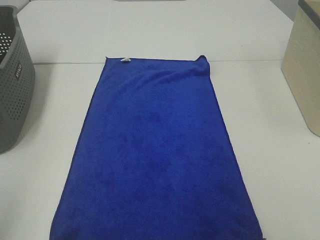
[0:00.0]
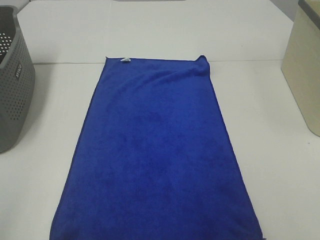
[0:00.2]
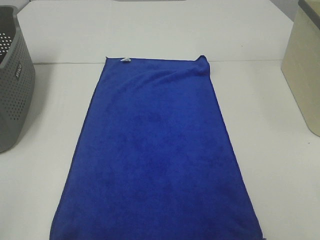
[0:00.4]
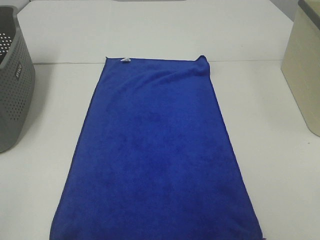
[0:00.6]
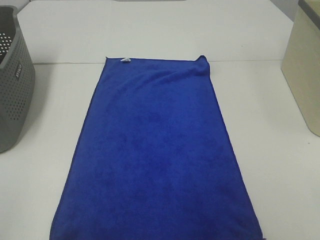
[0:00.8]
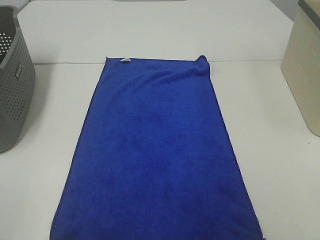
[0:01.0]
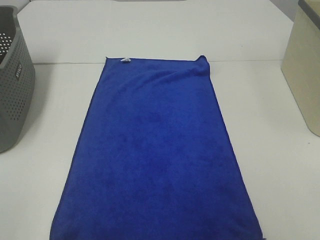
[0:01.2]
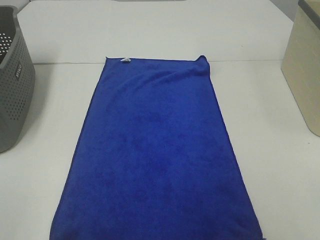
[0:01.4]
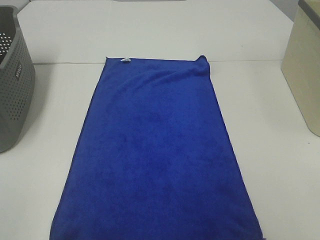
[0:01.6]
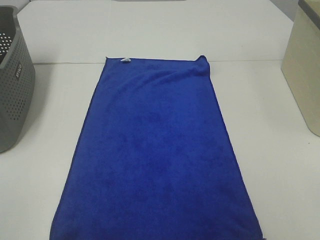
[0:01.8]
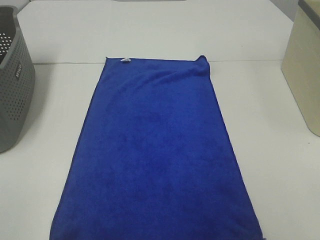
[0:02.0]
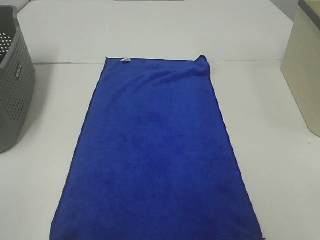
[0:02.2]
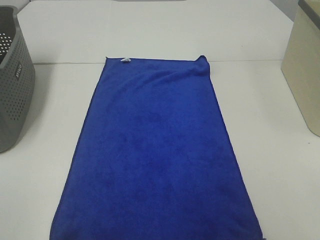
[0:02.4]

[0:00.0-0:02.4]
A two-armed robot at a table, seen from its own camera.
Task of the whole recording: Remove the towel and place it.
0:01.2 to 0:02.4: Both grippers stay about where they are.

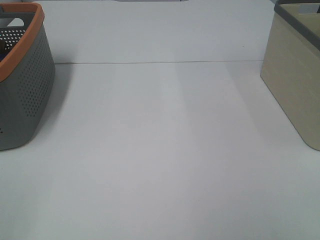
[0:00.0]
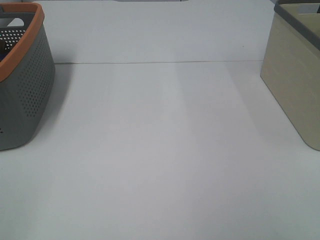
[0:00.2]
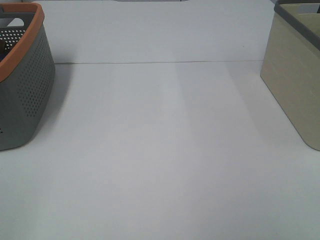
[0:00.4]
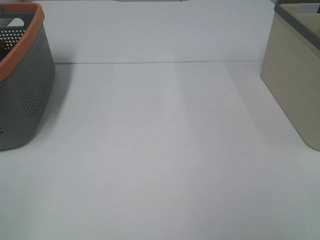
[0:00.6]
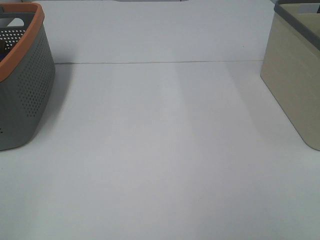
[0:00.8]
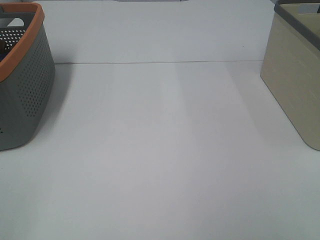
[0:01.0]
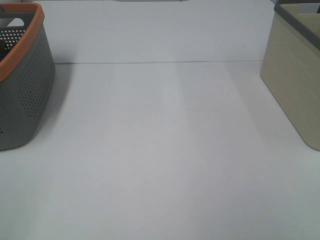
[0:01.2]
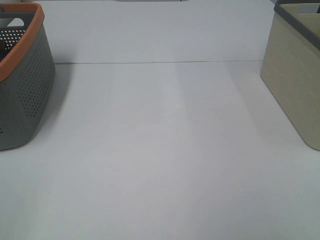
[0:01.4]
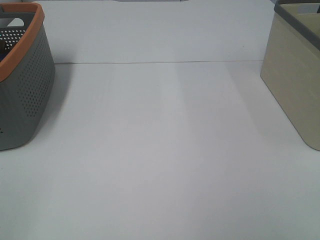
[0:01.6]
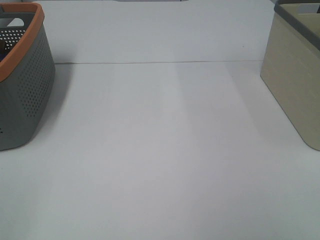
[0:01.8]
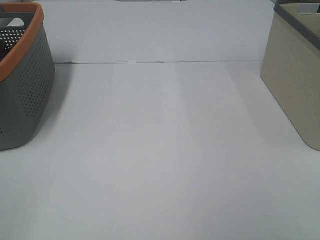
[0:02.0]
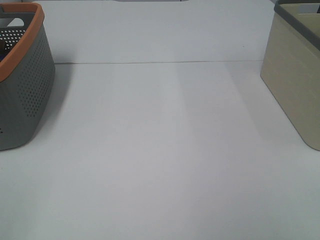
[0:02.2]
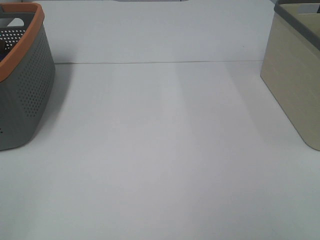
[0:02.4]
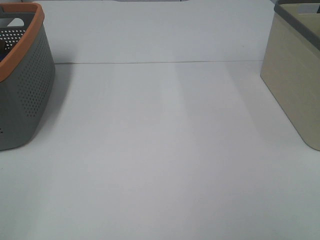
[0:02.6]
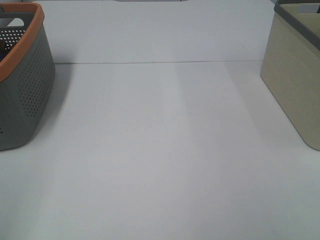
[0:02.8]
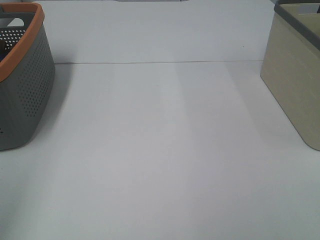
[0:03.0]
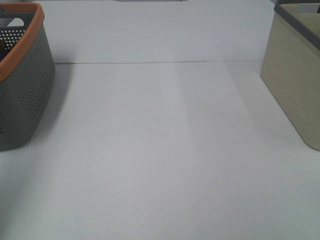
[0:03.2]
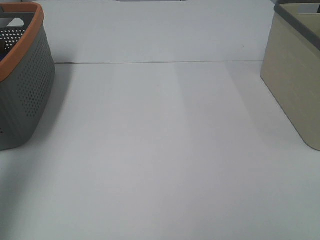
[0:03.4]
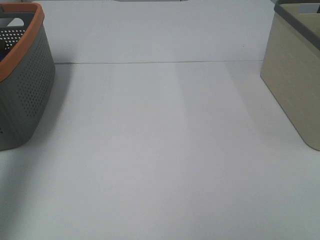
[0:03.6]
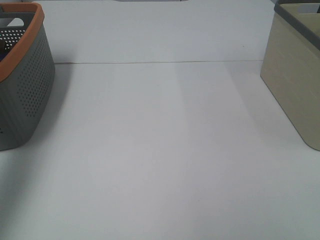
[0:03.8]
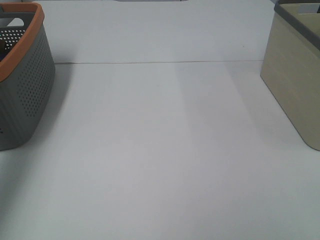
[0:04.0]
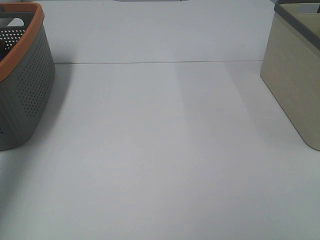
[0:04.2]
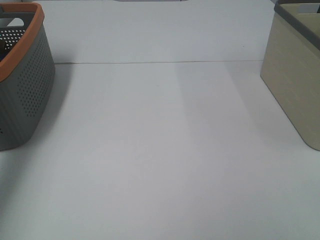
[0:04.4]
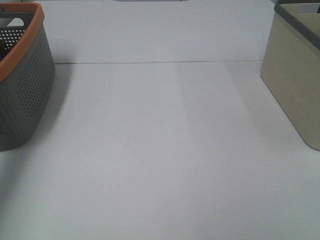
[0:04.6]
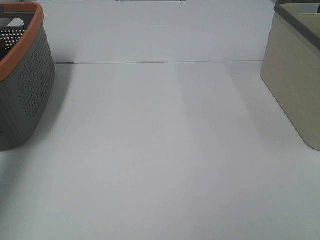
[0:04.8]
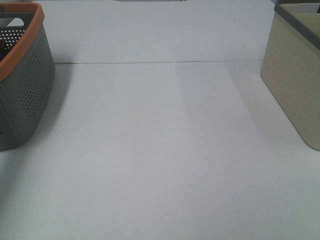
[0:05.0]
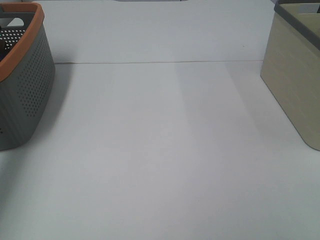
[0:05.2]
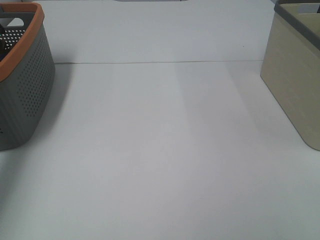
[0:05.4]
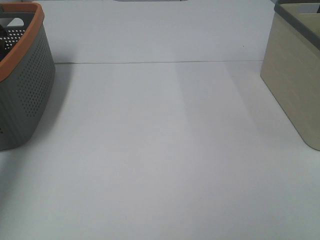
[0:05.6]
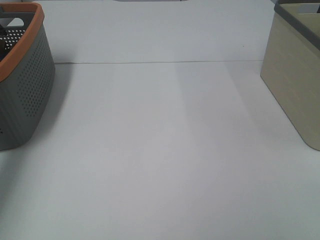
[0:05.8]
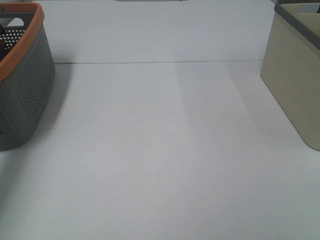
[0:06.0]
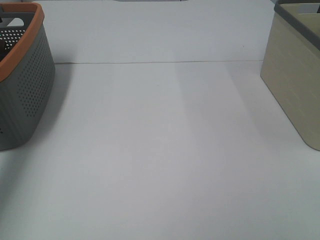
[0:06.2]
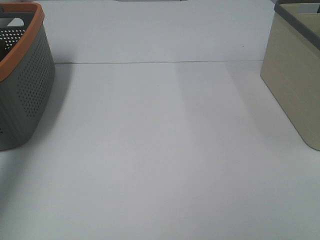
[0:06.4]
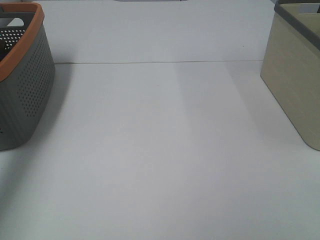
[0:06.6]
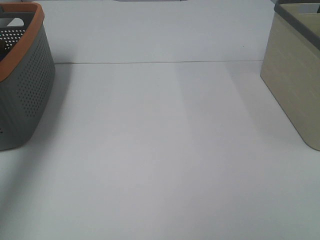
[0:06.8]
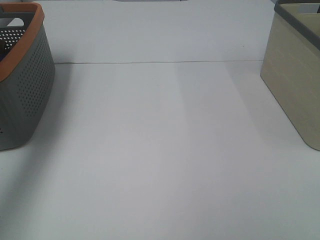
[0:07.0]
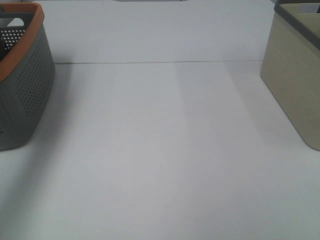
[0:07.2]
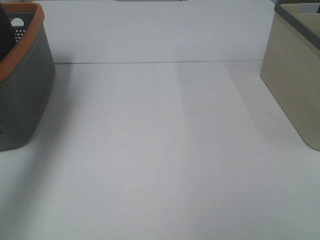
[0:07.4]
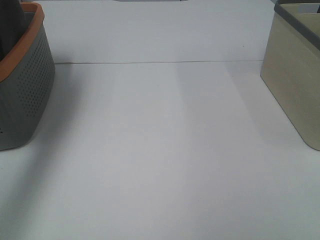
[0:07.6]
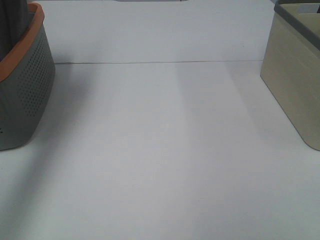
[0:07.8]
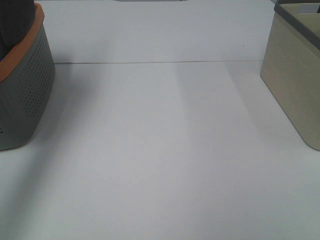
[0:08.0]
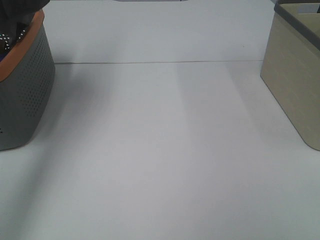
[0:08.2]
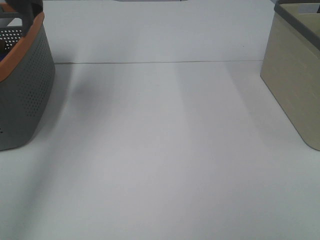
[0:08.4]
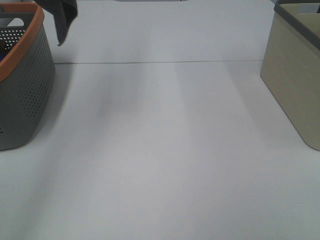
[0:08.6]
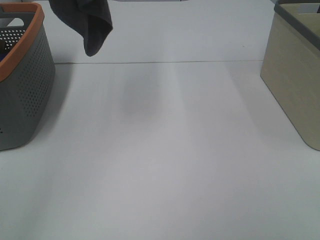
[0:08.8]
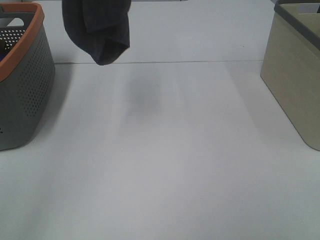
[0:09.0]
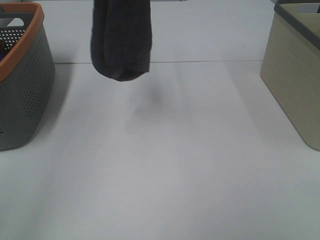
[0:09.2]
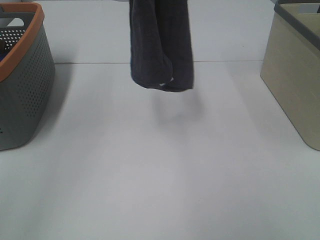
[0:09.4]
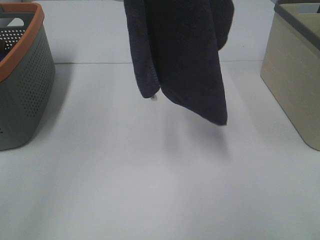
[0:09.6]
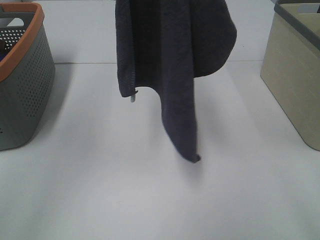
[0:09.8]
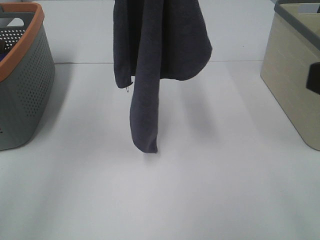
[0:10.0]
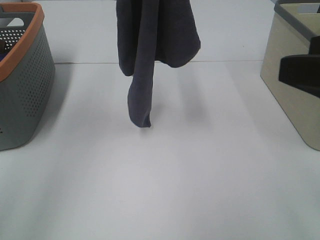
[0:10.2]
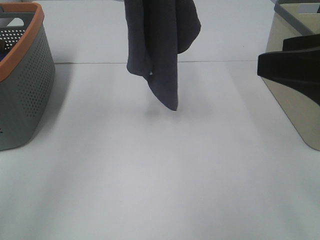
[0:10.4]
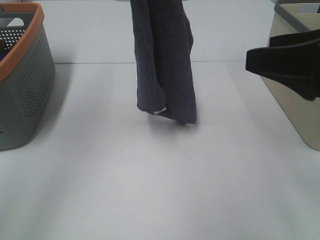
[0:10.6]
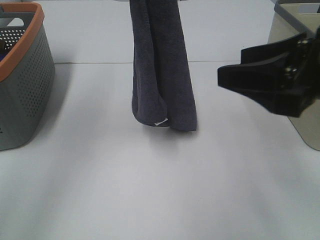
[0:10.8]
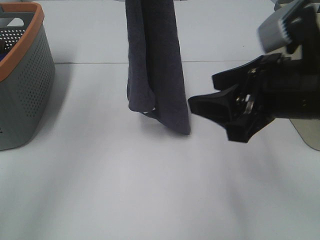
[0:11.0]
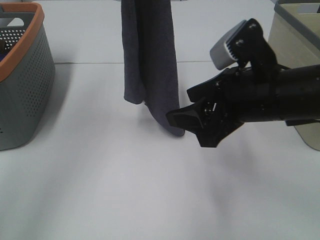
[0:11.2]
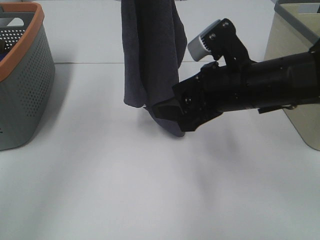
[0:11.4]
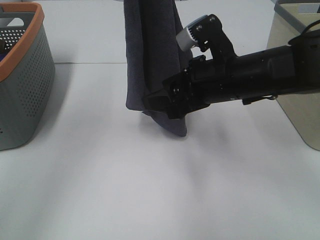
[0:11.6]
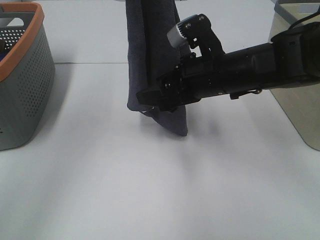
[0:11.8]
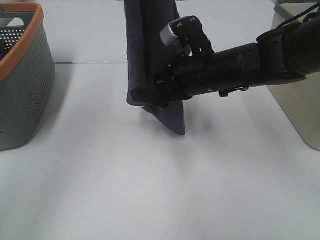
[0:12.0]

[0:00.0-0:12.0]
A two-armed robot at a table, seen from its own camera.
Task of the whole recording: Remove the towel and place it.
0:00.0 to 0:01.6: Neither gripper changes place.
0:03.0 to 0:04.4: The left gripper goes roughly 30 cm forward.
0:06.0 to 0:07.6: The left gripper moves upward and to the right, some 20 cm.
0:07.6 to 0:09.0: The left gripper is displaced to the right, upward and backward by approximately 20 cm.
0:09.0 to 0:10.4: The left gripper heads downward, covering some 5 cm. The right gripper goes about 15 cm forward.
0:10.4 to 0:12.0: The right gripper heads forward, to the left and downward, covering roughly 25 cm.

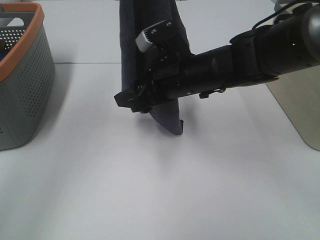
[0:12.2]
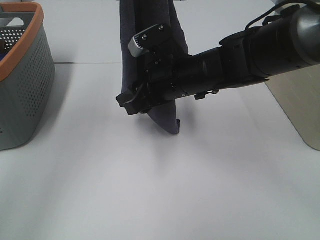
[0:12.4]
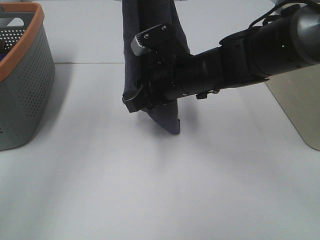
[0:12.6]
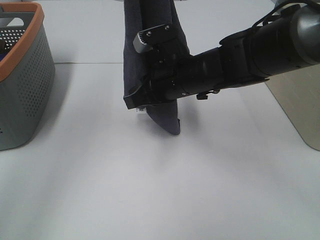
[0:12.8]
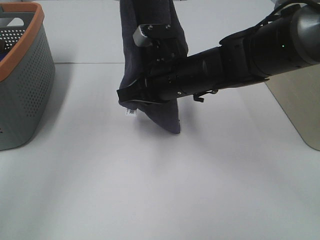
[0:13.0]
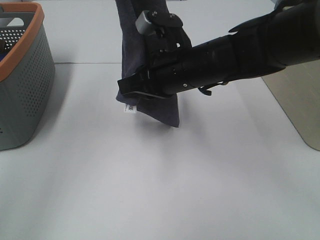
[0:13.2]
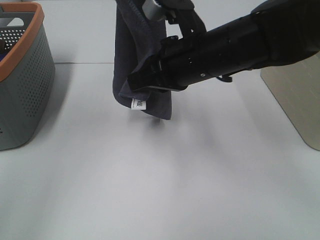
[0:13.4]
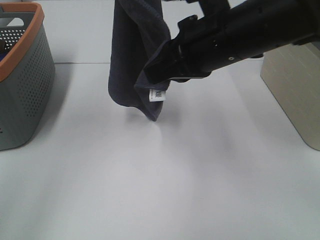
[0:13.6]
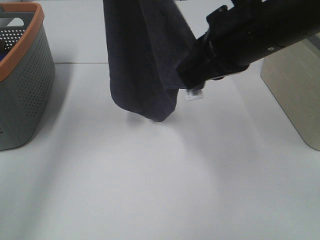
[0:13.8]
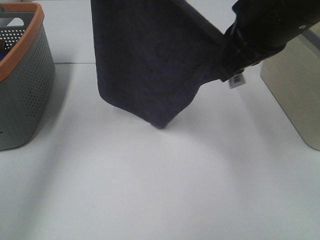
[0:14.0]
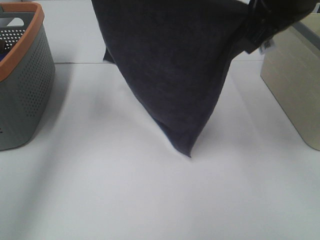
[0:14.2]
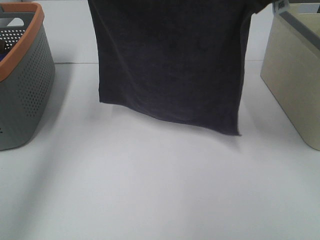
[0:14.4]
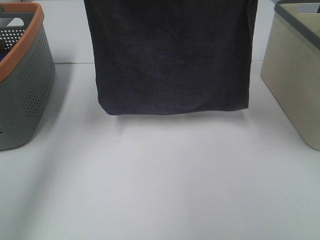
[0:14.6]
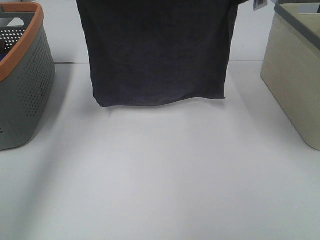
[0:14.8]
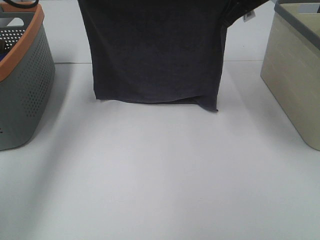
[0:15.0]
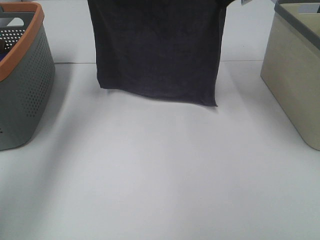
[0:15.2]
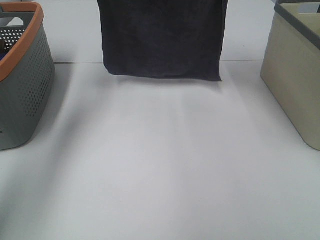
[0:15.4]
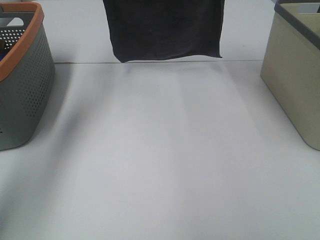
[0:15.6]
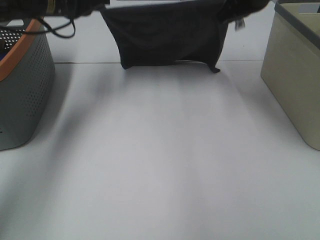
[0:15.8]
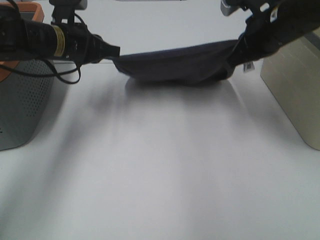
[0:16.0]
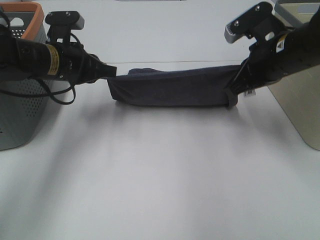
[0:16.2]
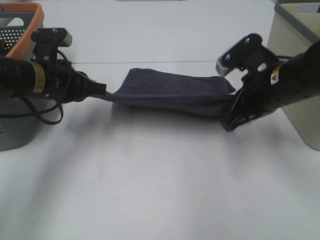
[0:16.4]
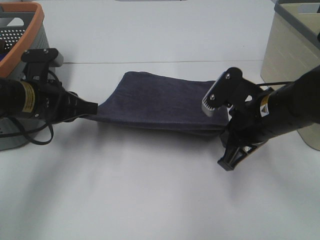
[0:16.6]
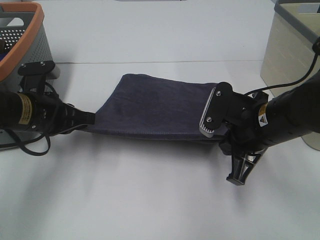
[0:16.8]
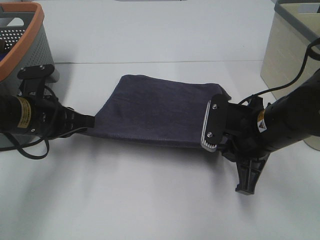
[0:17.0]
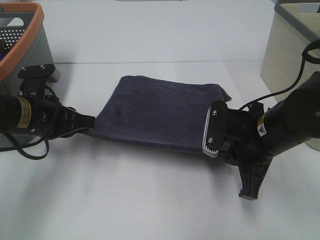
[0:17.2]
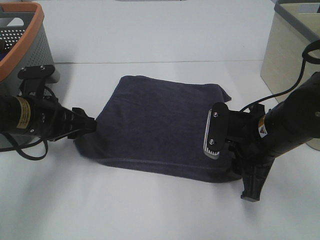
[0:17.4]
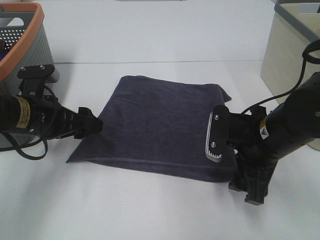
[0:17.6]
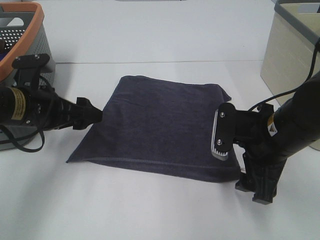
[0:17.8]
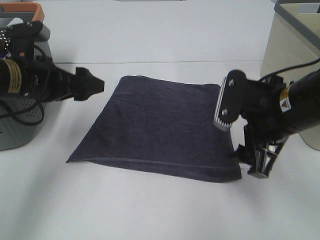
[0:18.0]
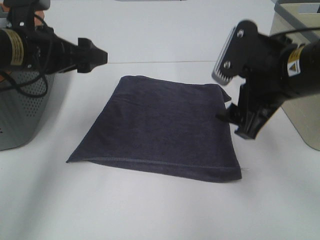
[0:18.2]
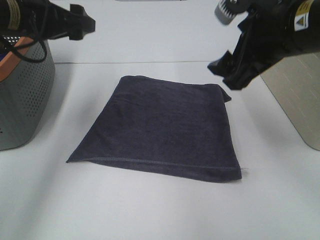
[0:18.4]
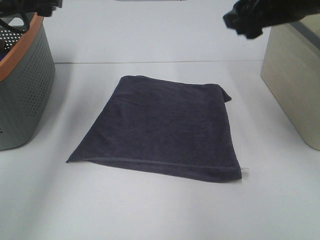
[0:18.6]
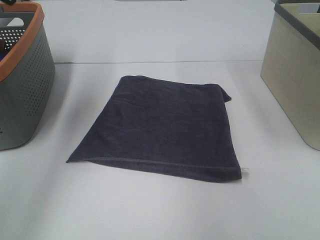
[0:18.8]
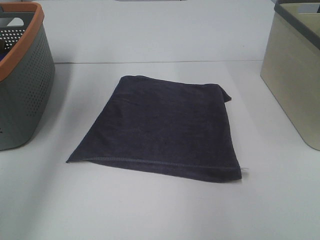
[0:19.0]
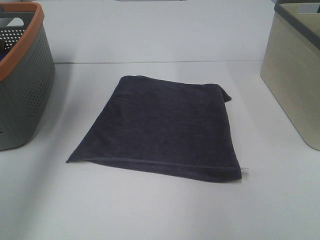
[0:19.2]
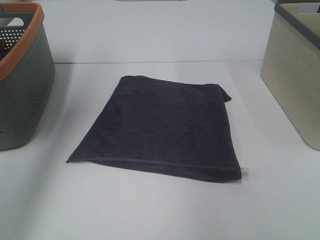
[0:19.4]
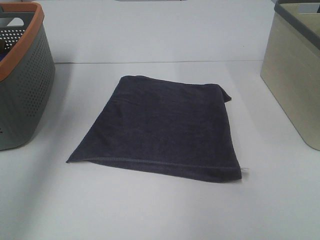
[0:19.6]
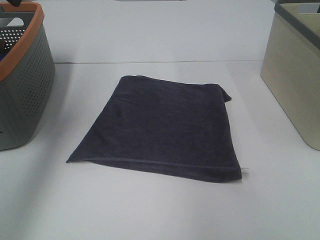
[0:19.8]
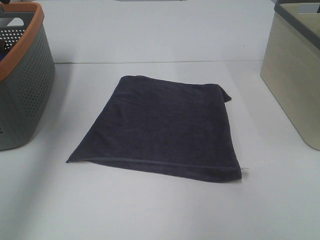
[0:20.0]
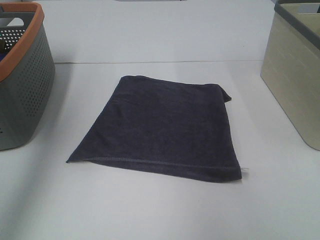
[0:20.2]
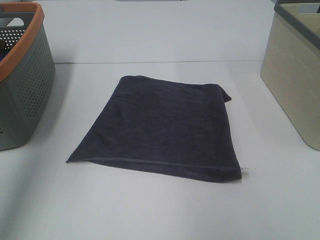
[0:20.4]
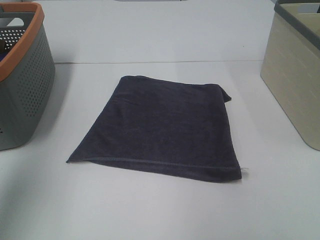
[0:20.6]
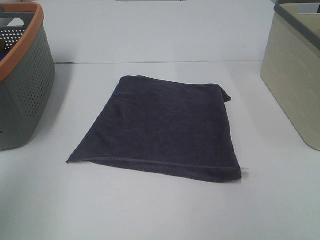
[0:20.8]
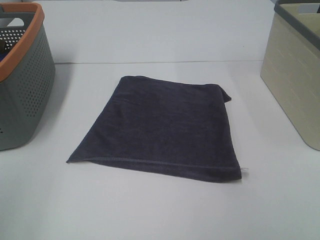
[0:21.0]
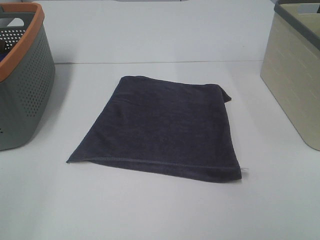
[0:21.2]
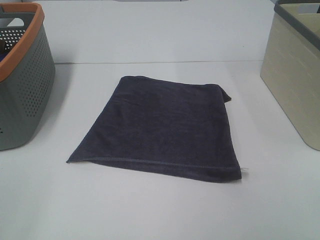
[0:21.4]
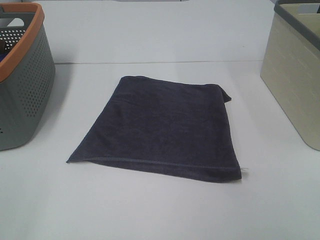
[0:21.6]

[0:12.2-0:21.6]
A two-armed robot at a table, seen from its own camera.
Task of the whole recording: Remove the towel and place it.
Step, 0:12.4 to 0:14.2: Left hand: spread the grey towel flat on the table.
Step, 0:12.4 to 0:14.2: Right hand: spread the grey towel flat on the table.
0:12.2 to 0:13.8: The left gripper ends up about 5 cm from where it was. Meanwhile the right gripper travels upward, backward and to the right by about 15 cm, and closes its fingers.
0:13.8 to 0:15.4: The right gripper shifts approximately 20 cm forward; the left gripper goes about 15 cm forward and downward.
0:15.4 to 0:17.0: The two grippers go some 30 cm downward and backward.
0:17.0 to 0:18.4: The left gripper shifts approximately 15 cm upward and forward, and opens up; the right gripper goes roughly 15 cm upward, and opens up.
0:18.4 to 0:20.0: The right gripper moves upward and to the right, roughly 20 cm; the left gripper travels upward and to the left by some 15 cm.
0:20.0 to 0:21.6: The left gripper goes roughly 35 cm backward.
